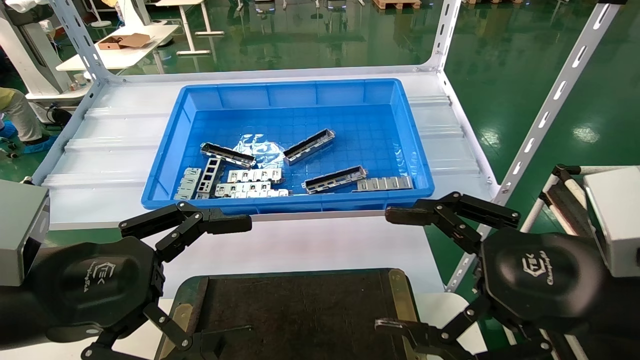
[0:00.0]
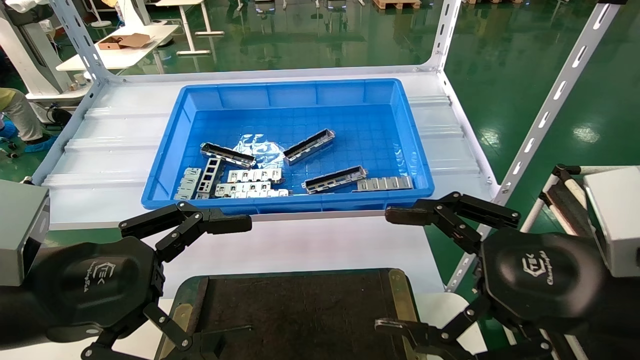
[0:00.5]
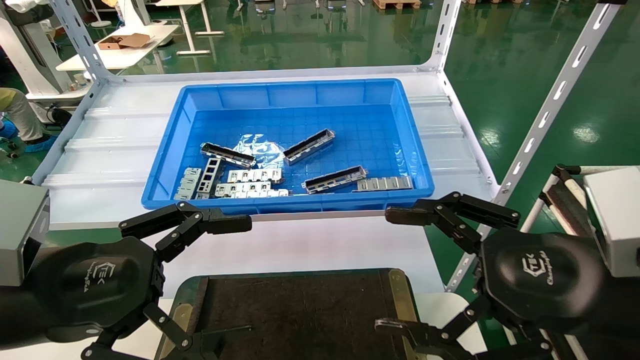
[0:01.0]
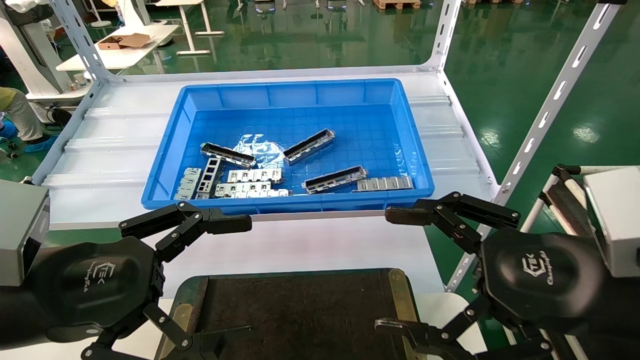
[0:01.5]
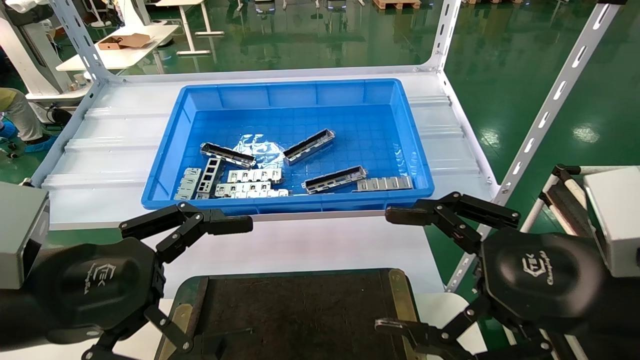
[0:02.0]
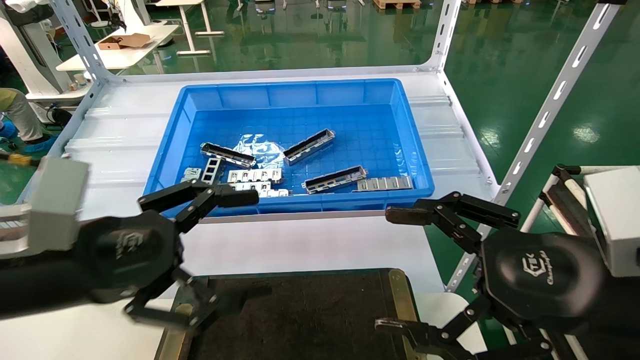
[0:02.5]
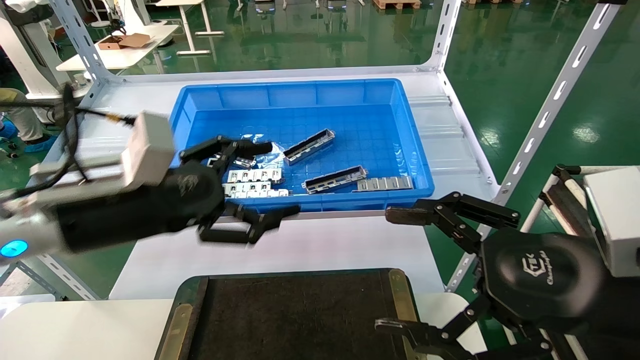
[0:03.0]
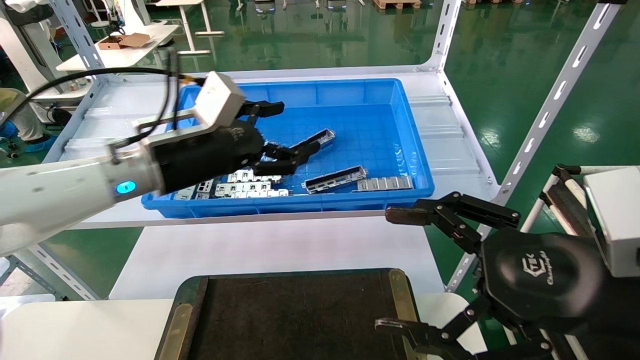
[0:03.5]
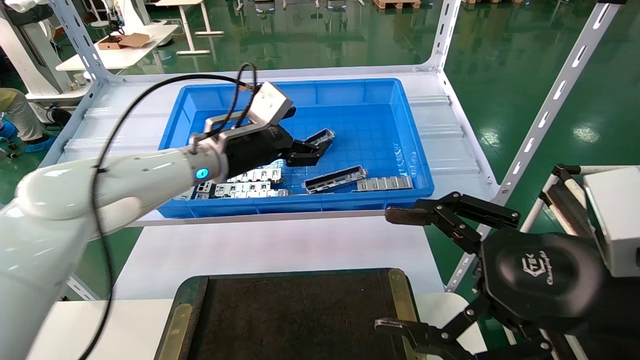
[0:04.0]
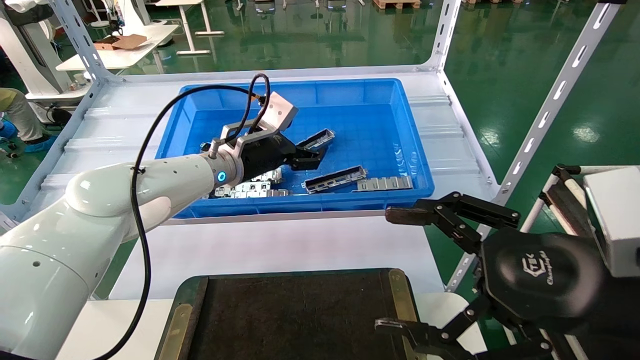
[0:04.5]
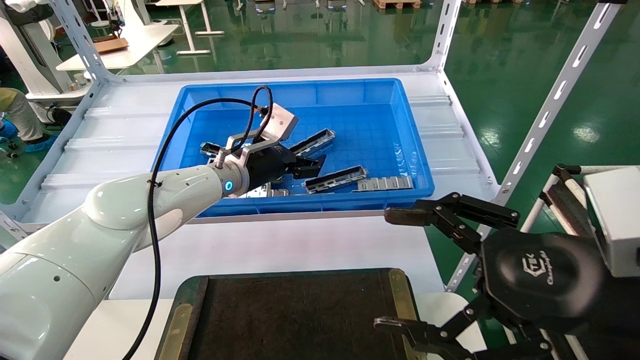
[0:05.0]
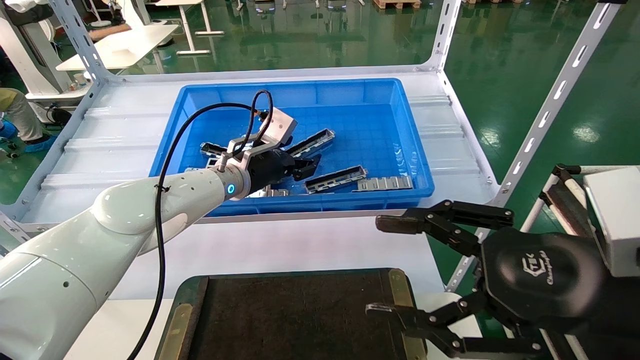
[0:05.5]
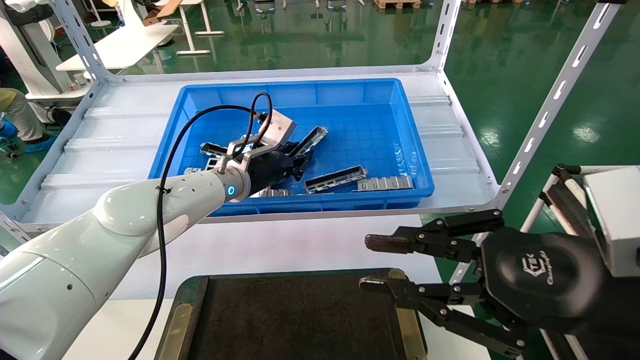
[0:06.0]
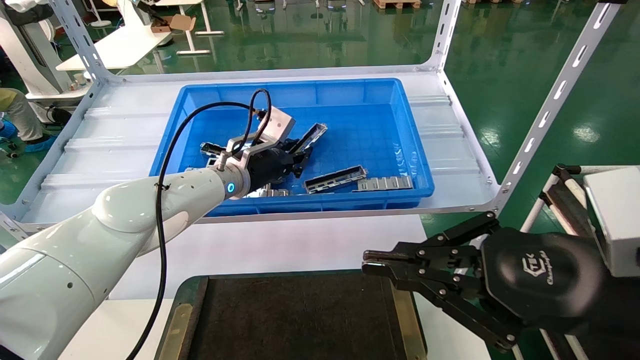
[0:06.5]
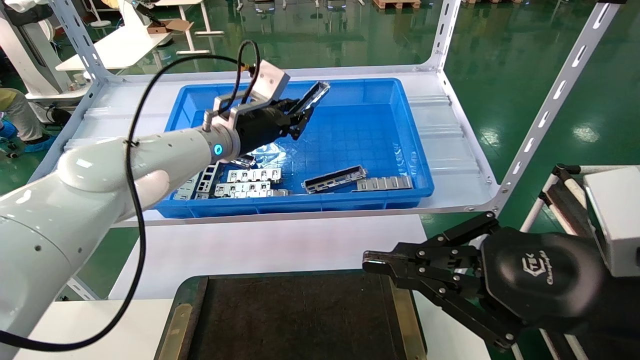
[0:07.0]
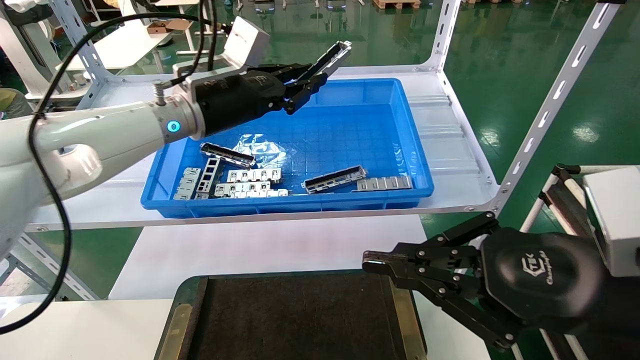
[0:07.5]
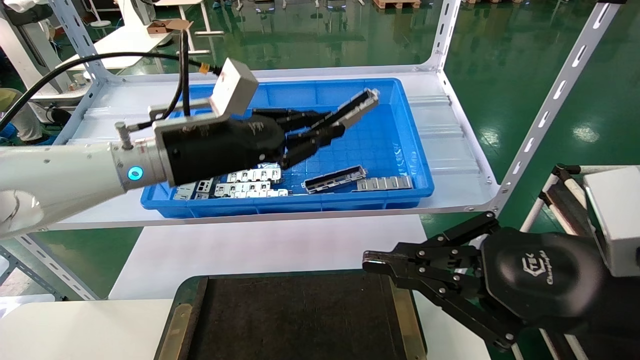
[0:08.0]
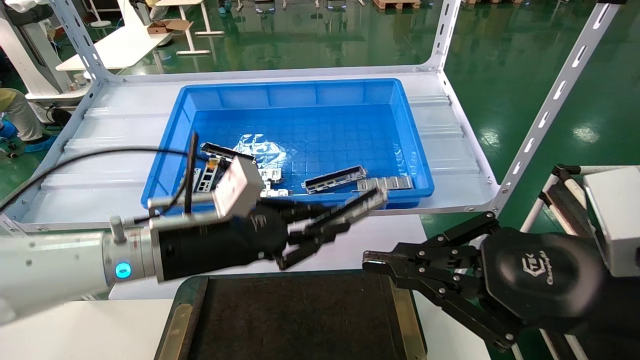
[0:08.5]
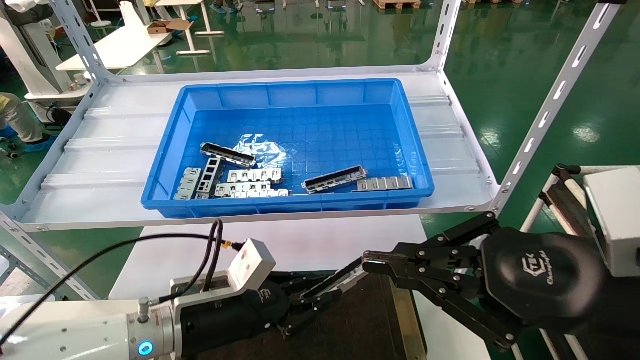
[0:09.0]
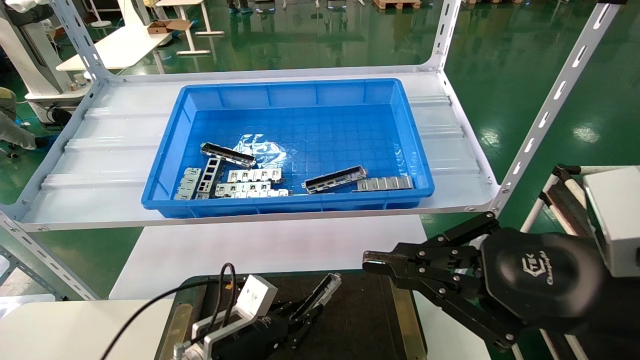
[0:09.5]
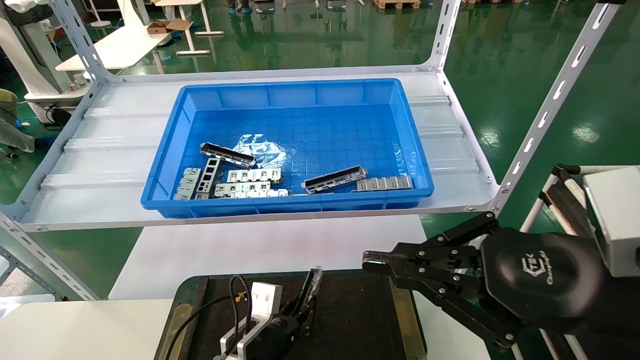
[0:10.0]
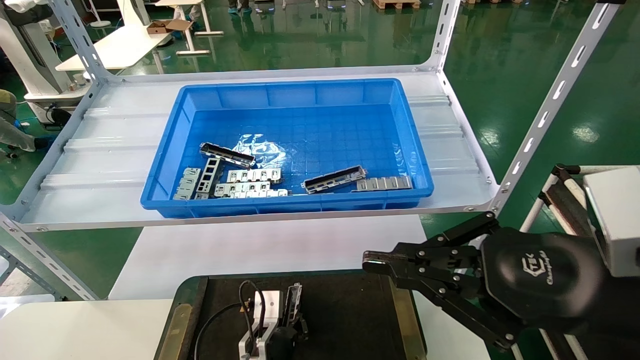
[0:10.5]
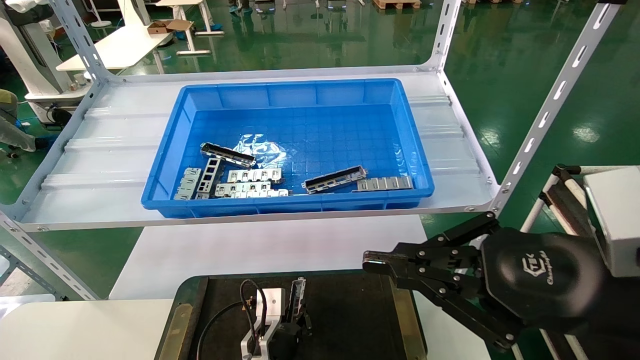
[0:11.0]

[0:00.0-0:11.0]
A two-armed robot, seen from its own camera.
Task of the whole recording: Grasp the part with one hand and place it on the black container.
Step, 0:02.5 to 0:06.0: Pick up the front USB bracket from the feeding area.
0:00.0 to 0:02.0: The two grippers keep their place.
0:02.0 to 0:03.5: The left gripper goes about 20 cm forward and to the right.
0:03.5 to 0:05.5: The left gripper moves forward, to the right and downward, roughly 15 cm.
0:05.5 to 0:07.5: The left gripper is displaced upward and backward by some 10 cm, and closes its fingers. Meanwhile the right gripper closes its fingers.
0:07.5 to 0:09.0: The left gripper heads downward and backward, covering some 25 cm.
0:09.0 to 0:11.0: The left gripper goes about 15 cm downward and to the right.

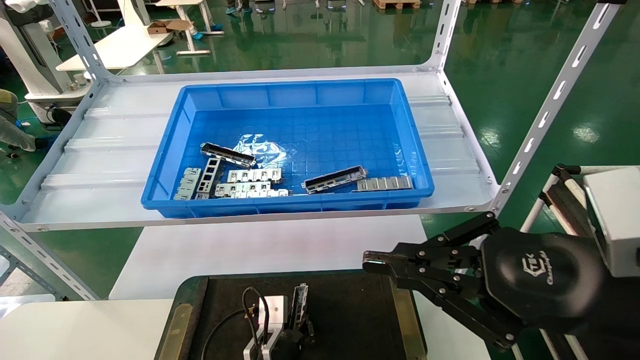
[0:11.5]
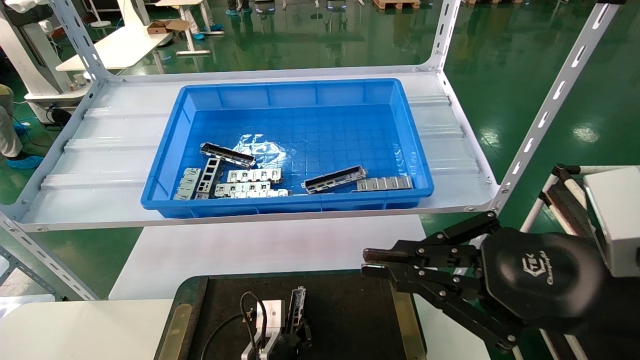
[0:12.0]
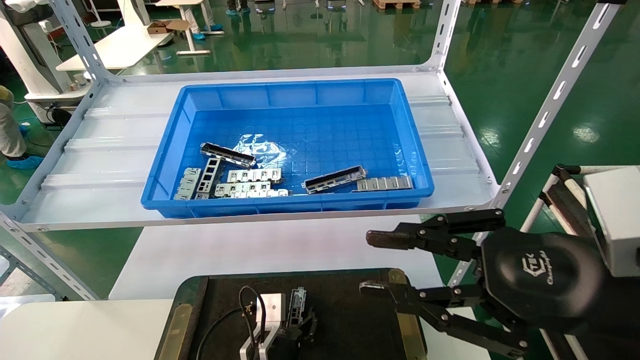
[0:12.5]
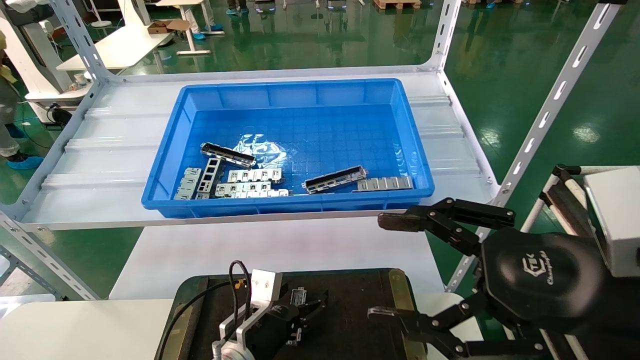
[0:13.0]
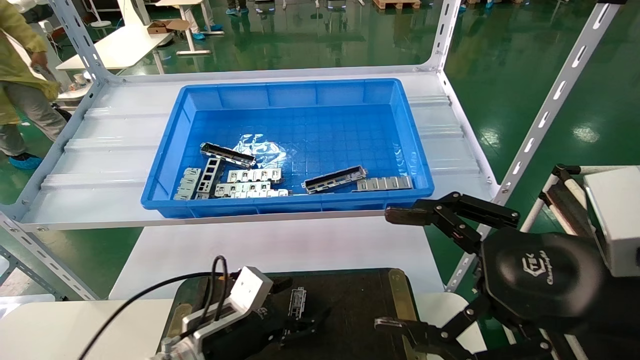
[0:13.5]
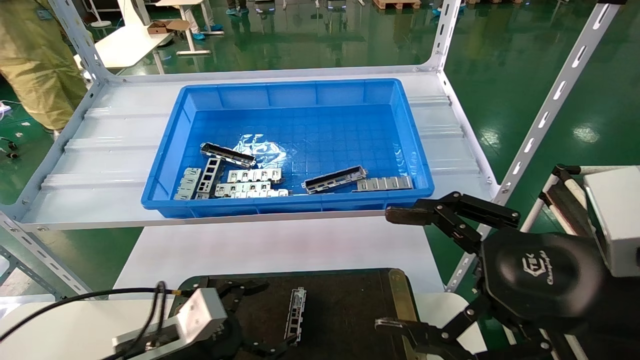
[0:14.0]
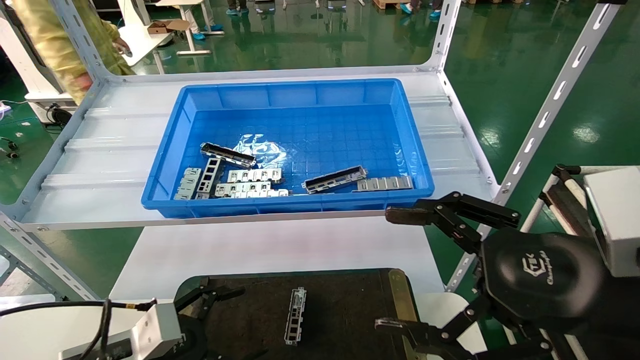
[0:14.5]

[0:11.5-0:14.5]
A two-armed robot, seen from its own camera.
Task of the whole recording: Grasp the part with one hand and place it on the black container.
0:11.5 to 0:13.0: The left gripper heads upward, covering about 5 cm, and opens, while the right gripper opens its fingers.
0:13.0 to 0:14.5: The left gripper travels to the left and backward by some 20 cm.

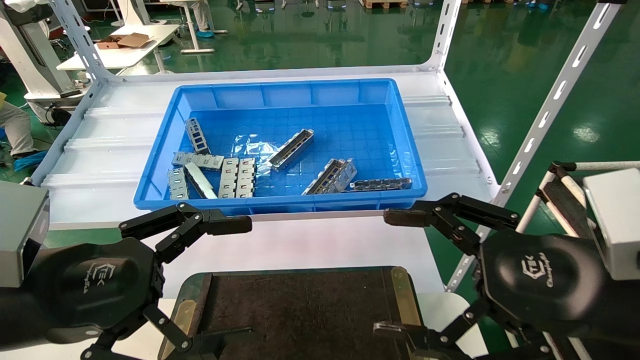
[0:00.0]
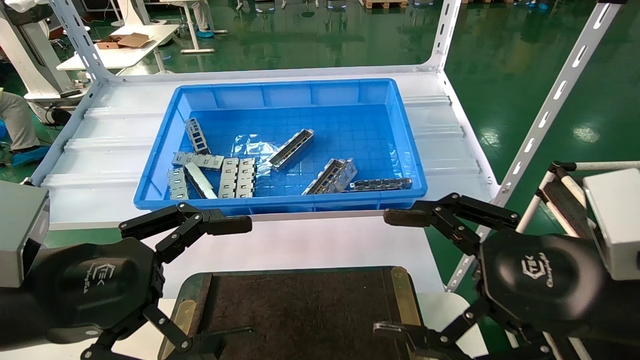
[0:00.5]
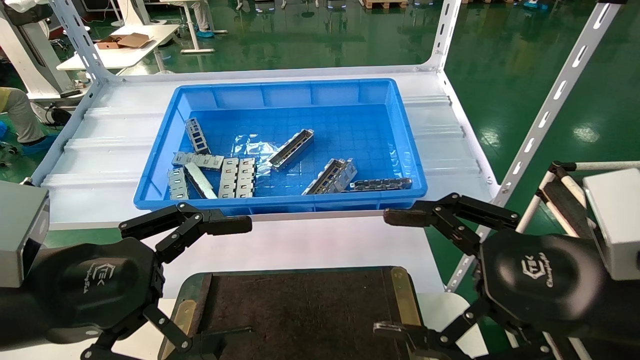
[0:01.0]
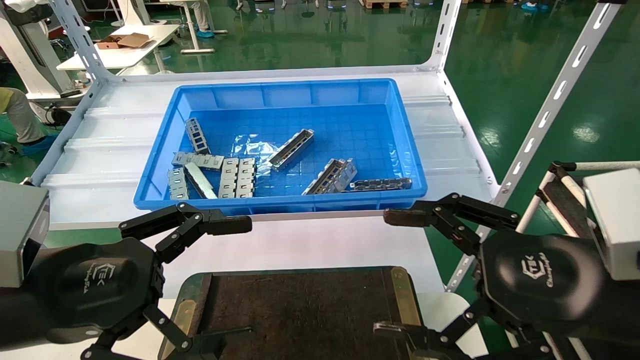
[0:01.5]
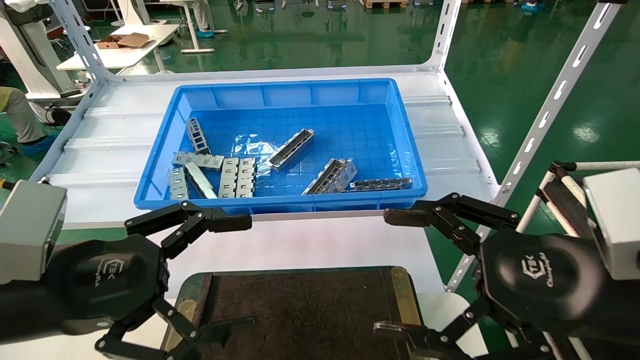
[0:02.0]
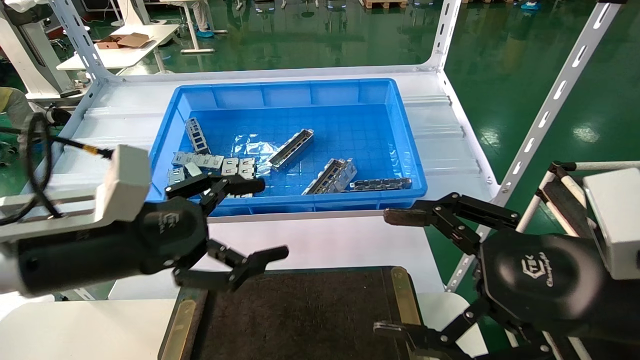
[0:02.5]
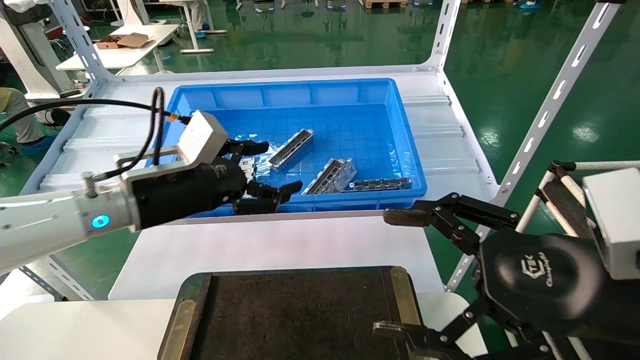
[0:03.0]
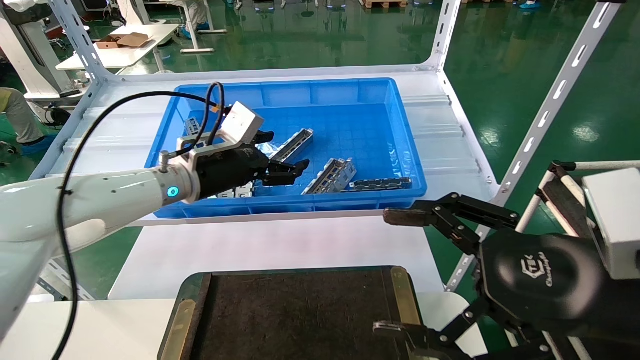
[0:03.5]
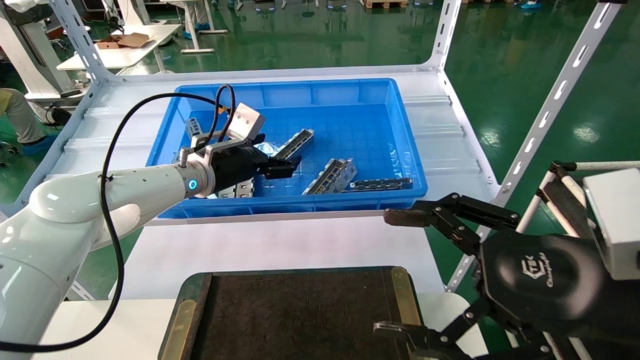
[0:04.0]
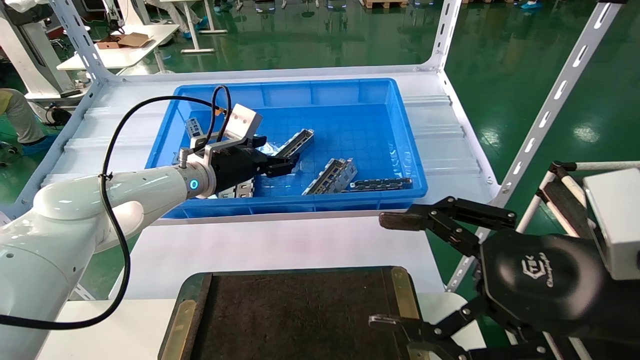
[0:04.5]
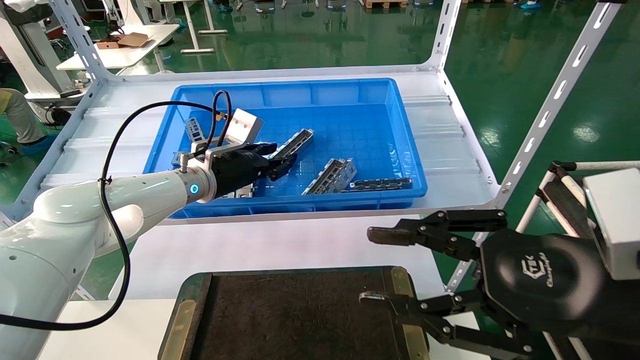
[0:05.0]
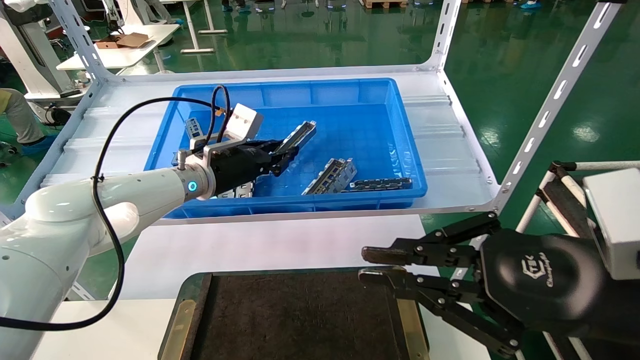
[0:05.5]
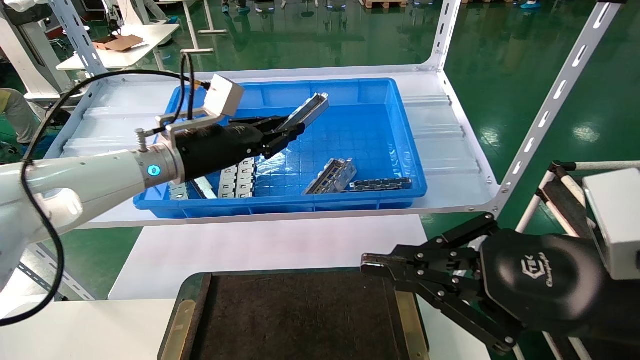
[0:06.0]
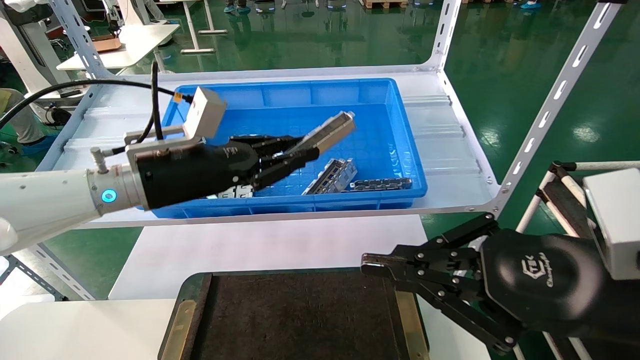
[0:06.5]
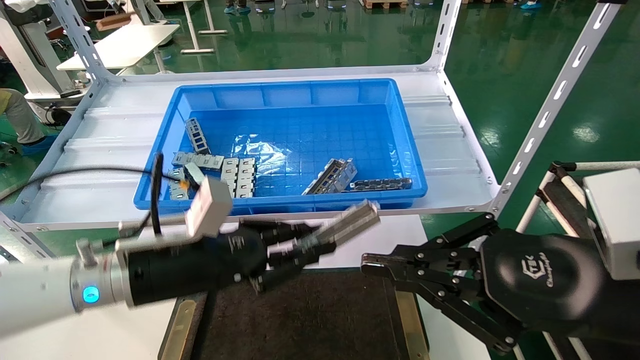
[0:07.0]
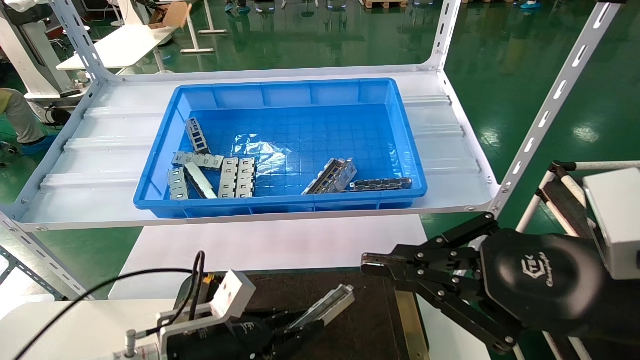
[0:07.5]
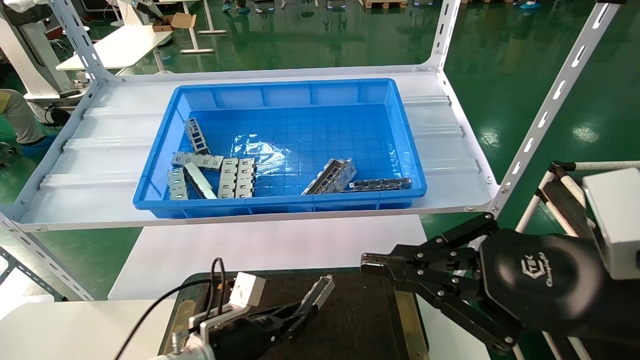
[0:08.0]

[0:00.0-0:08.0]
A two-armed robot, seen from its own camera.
Task of the whole recording: Grasp the part with one hand and place it on the black container.
Step, 0:02.5 to 0:06.0: Pick up the front USB bracket from the feeding area.
0:00.0 to 0:02.0: Both grippers stay put.
0:02.0 to 0:04.0: The left gripper goes roughly 30 cm forward.
0:04.0 to 0:06.0: The right gripper closes. Meanwhile the left gripper ends up approximately 5 cm from where it was, and closes its fingers.
0:06.0 to 0:08.0: The left gripper moves downward, roughly 30 cm.
